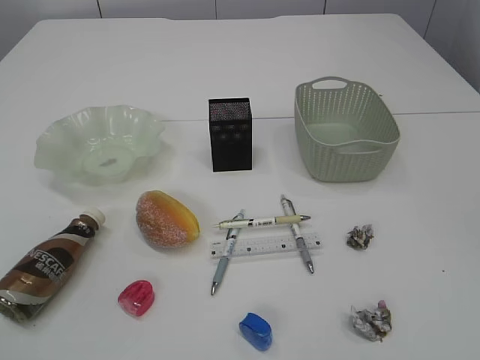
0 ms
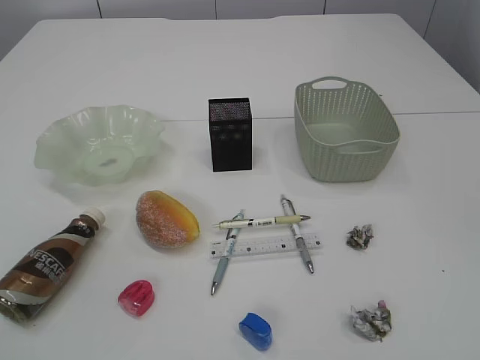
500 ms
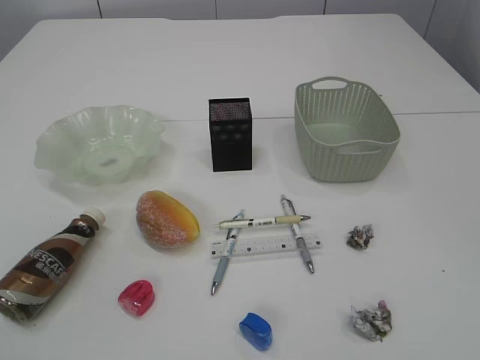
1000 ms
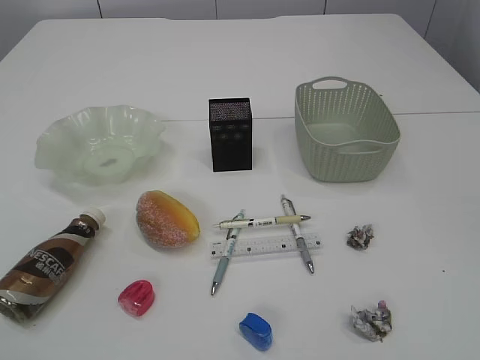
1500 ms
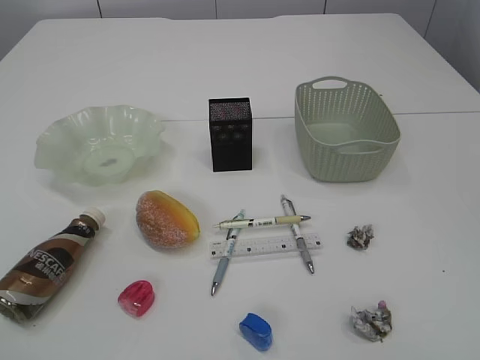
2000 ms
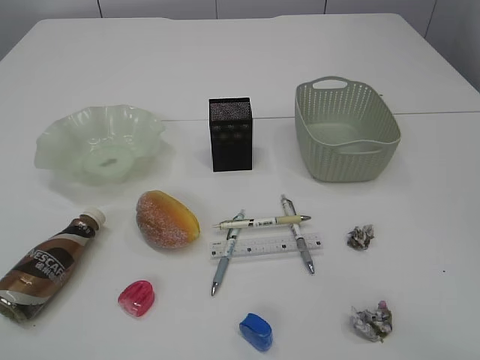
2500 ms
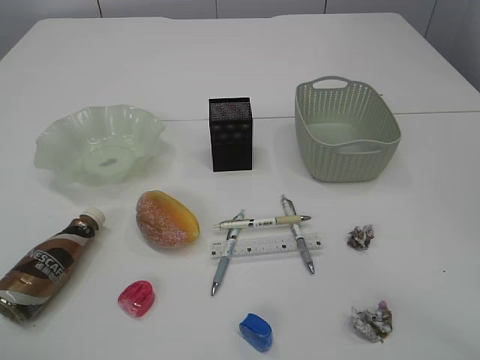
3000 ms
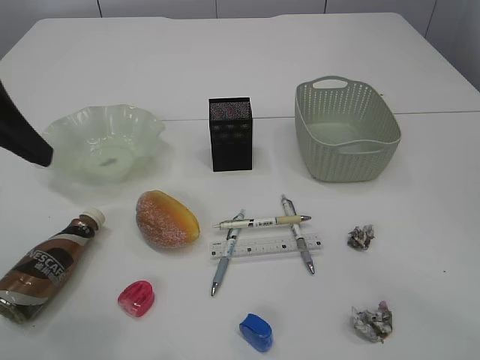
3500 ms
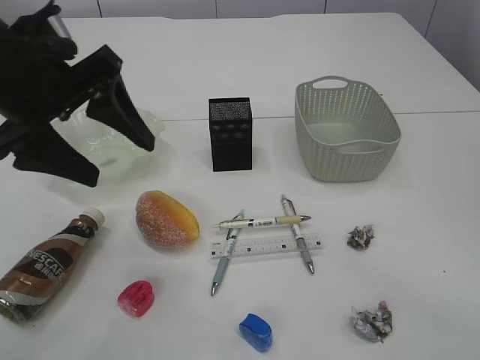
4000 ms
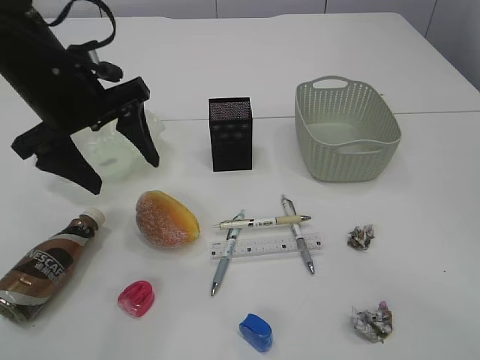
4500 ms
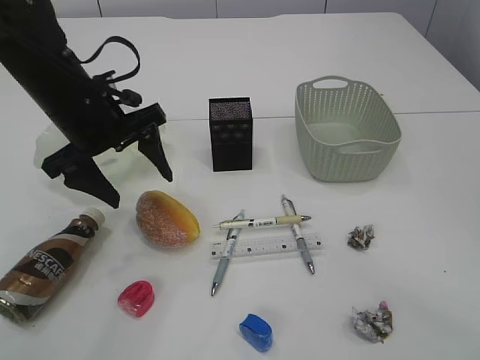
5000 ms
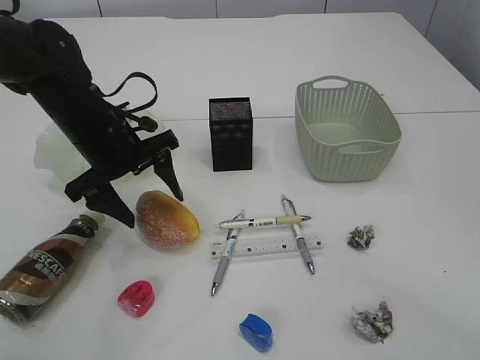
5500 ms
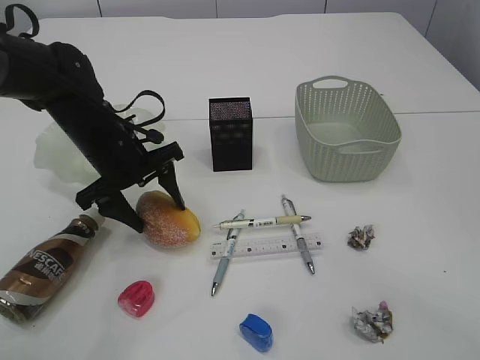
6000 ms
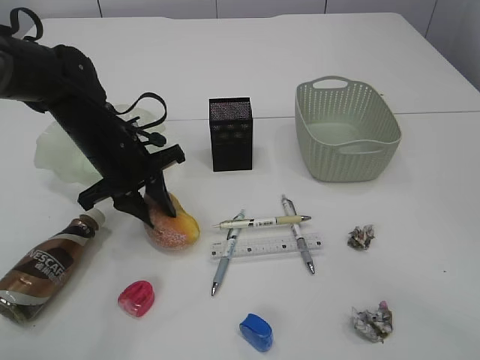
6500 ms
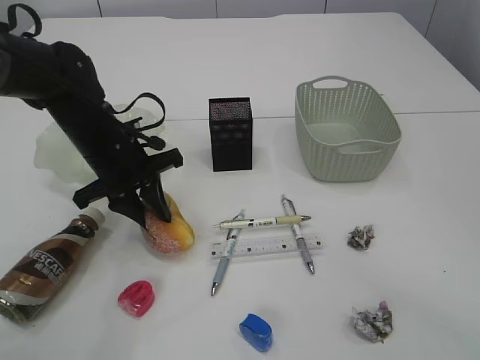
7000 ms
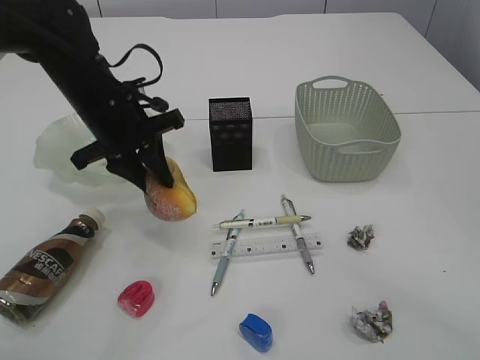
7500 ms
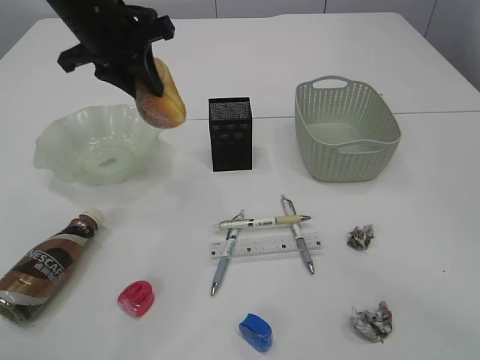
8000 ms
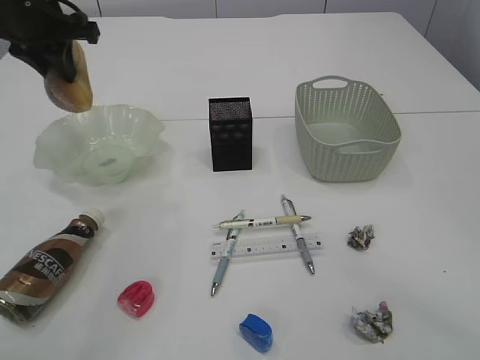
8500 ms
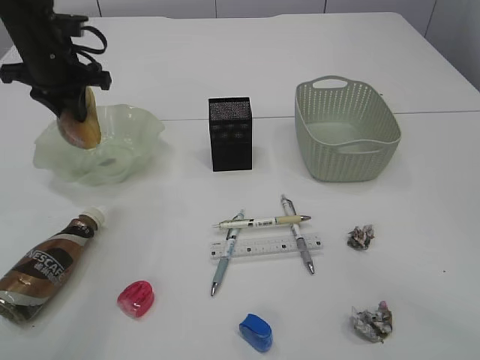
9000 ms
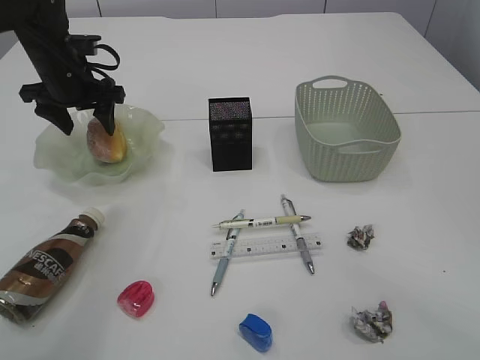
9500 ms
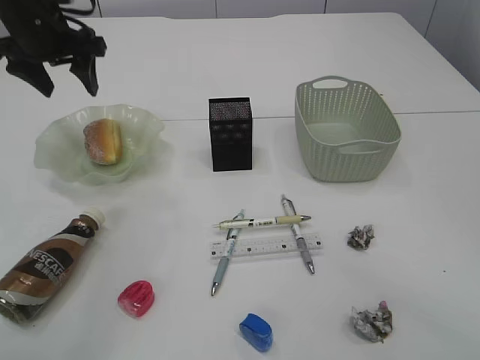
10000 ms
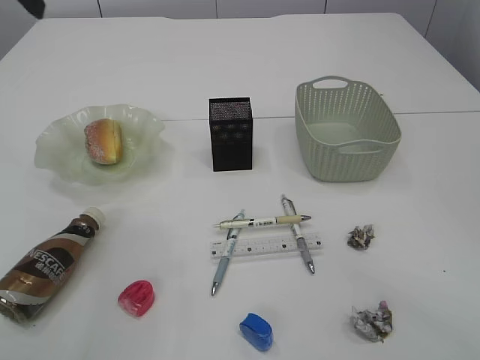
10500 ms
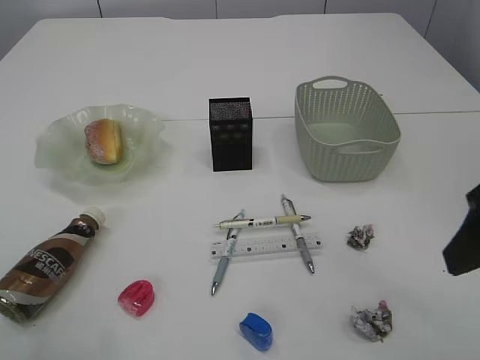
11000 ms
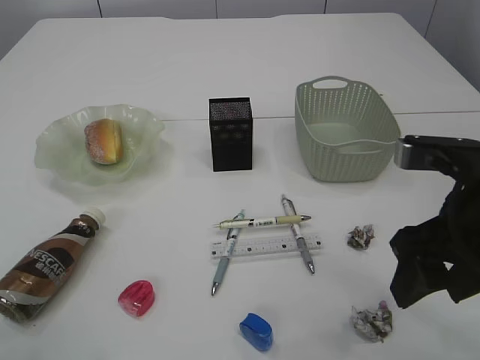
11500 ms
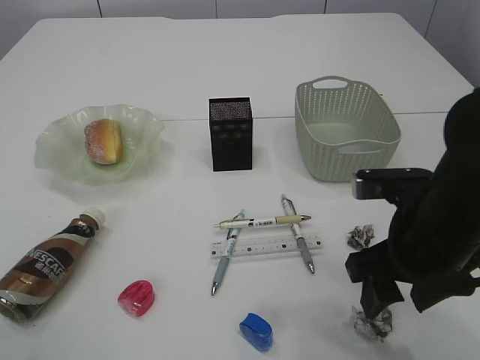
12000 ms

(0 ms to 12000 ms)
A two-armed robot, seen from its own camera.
Step, 8000 ms - 10000 ms: place the bread in the plate.
2000 ms - 4000 ms: The left gripper goes about 30 cm forward and to the right.
4000 ms - 6000 ms: The left gripper shifts roughly 20 cm downward and forward.
6000 ms - 8000 ms: The left gripper heads upward, covering about 15 cm, and closes its fingers.
8000 ms - 10000 ms: The left gripper is displaced to the left by roughly 10 cm, moves about 10 cm downward and comes back, and opens its fingers.
10000 ms - 12000 ms: The left gripper moves backward and upward, approximately 30 cm. The right gripper is displaced downward, forward and to the left by approximately 15 cm.

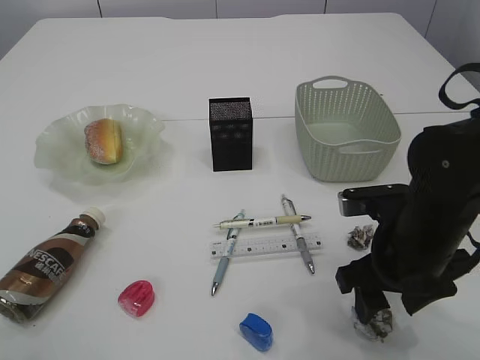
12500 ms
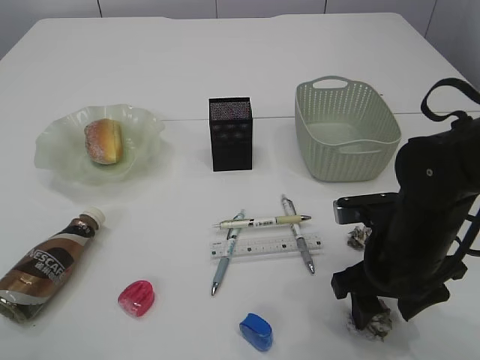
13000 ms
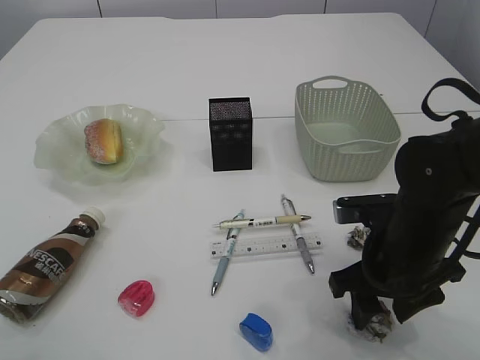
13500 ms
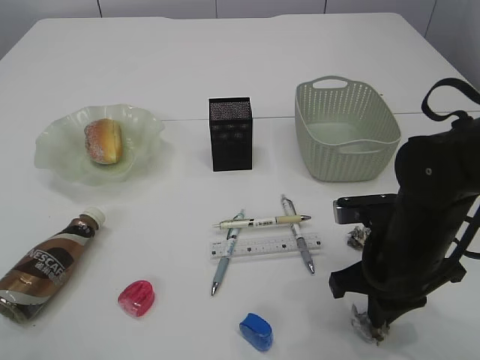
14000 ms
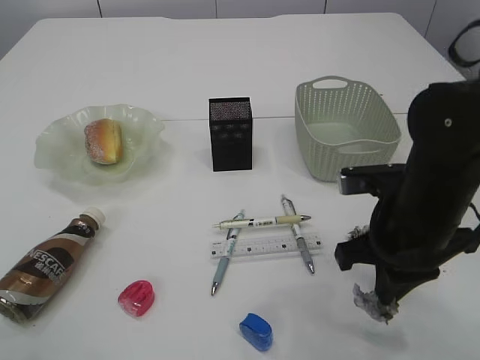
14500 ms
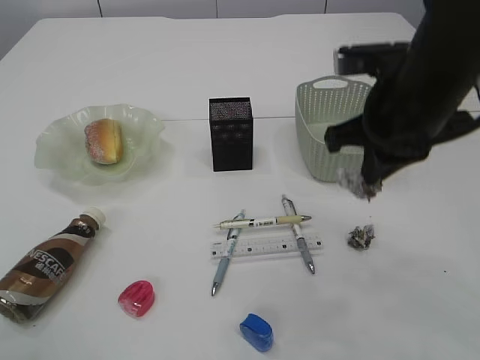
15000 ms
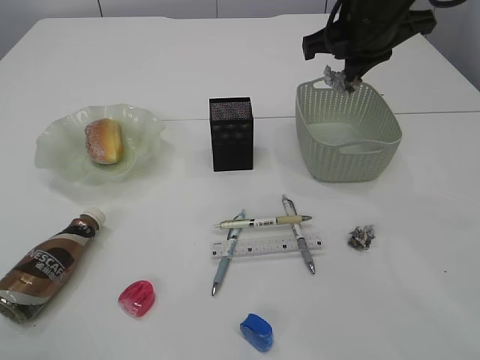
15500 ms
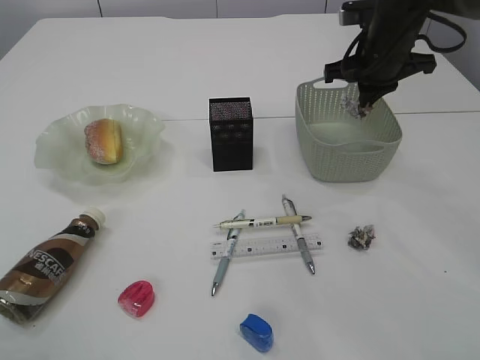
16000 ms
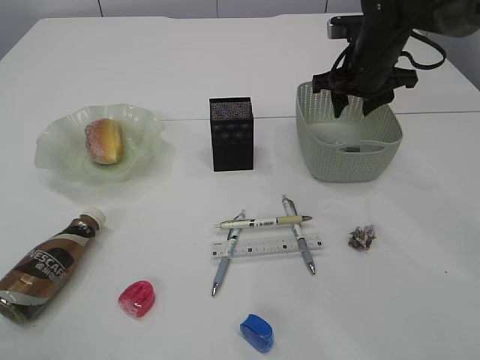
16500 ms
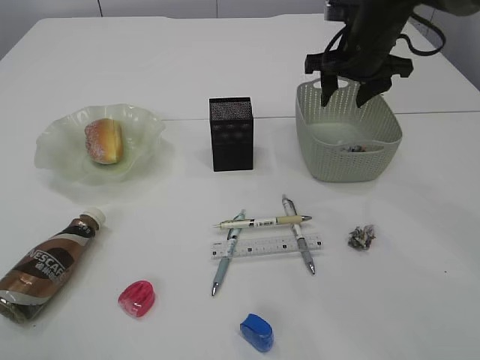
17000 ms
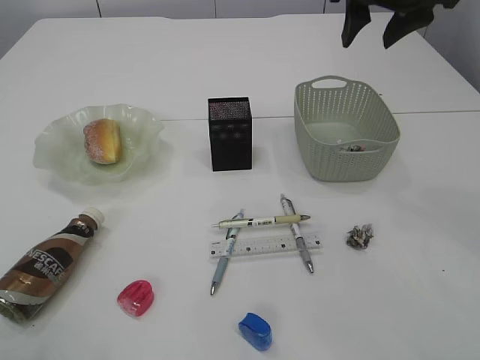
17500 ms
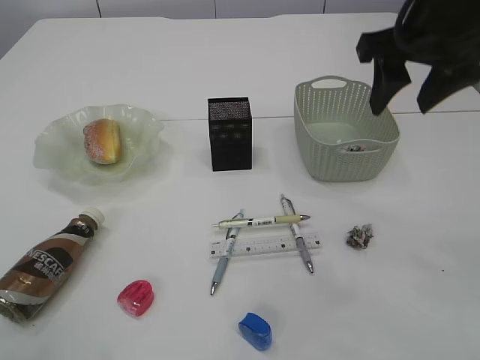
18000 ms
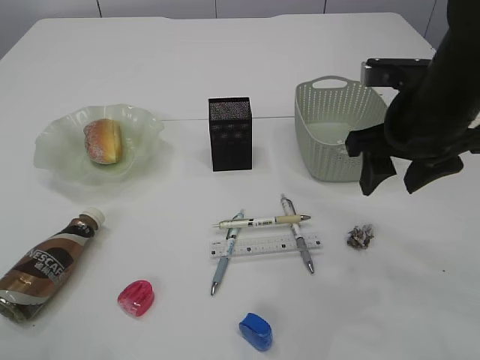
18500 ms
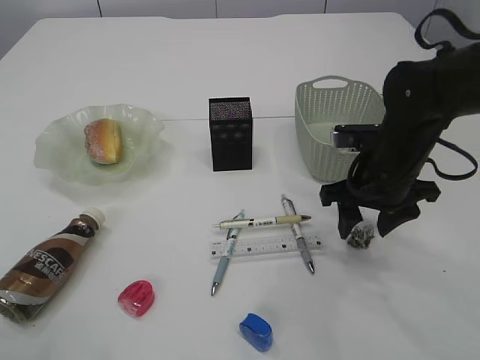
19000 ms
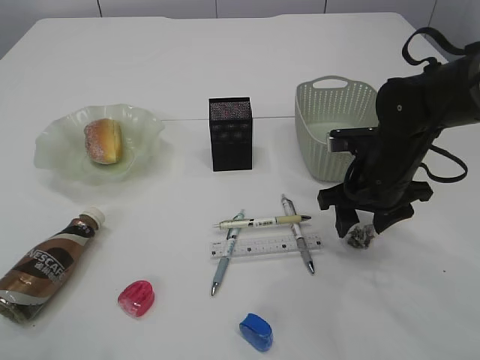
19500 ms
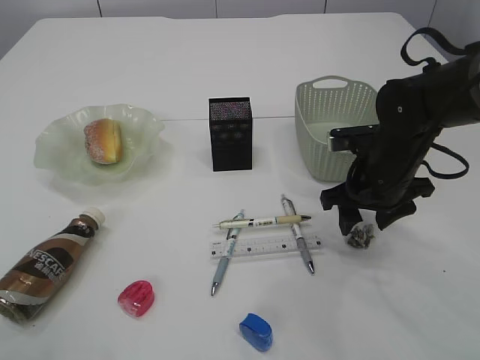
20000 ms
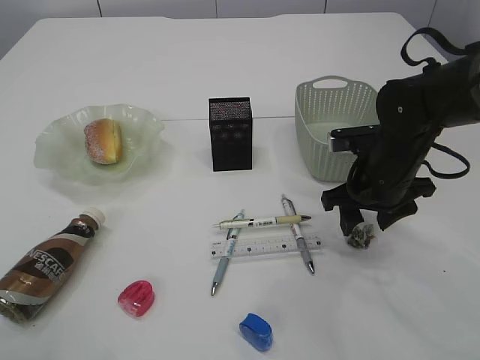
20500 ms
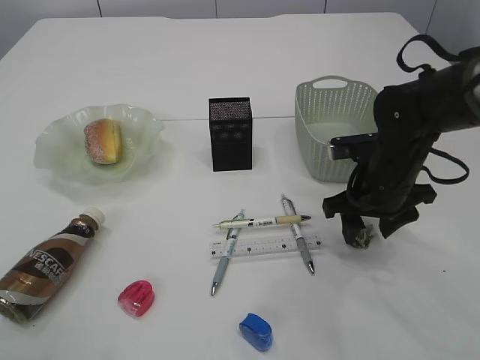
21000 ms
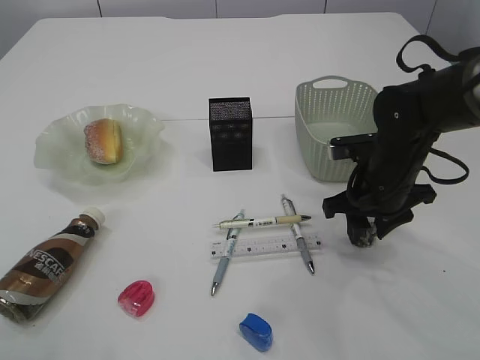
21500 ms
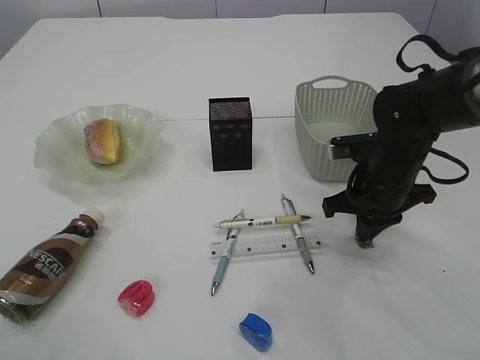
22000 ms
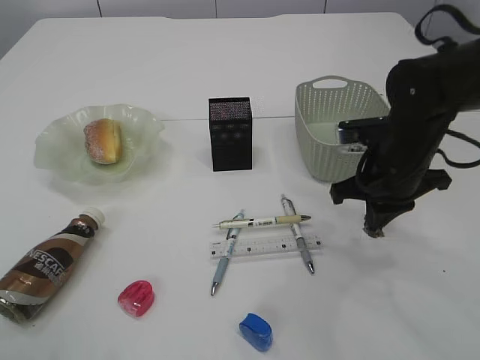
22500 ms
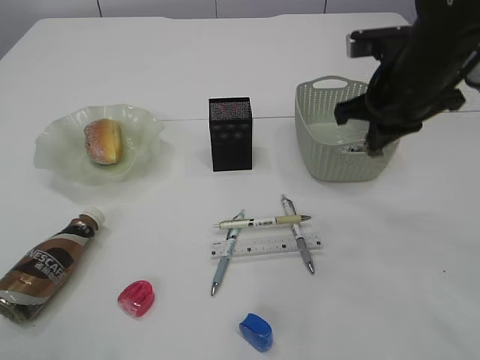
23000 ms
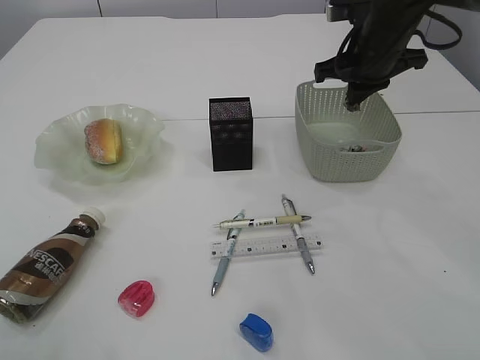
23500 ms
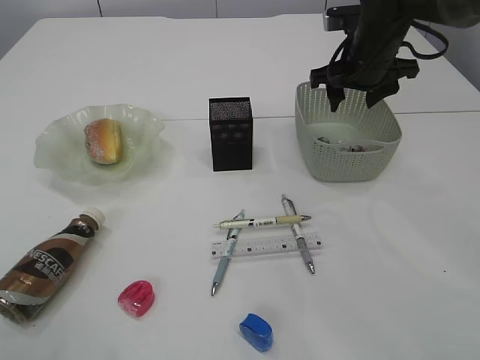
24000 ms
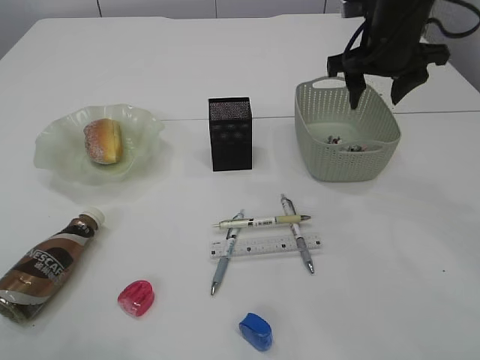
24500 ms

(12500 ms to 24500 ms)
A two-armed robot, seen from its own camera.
Step, 12500 ms - 14500 ms: Pick up the waste paper.
Step, 15000 ms - 16500 ms: Place the waste paper in the basket.
Step, 17000 ms - 22500 ms: Pick up the waste paper.
Step, 23000 ms - 24000 ms: Place the waste paper in the basket.
12500 ms - 14500 ms: The right gripper closes.
14500 ms - 16500 ms: The right gripper shifts approximately 25 cm forward, and opens.
16500 ms - 18500 ms: The right gripper shifts about 15 cm backward.
18500 ms - 20500 ms: The right gripper moves downward, approximately 10 cm.
20500 ms - 22500 ms: The right gripper closes its fingers.
22500 ms - 24500 ms: The right gripper goes roughly 15 cm upward and forward, and opens its fingers.

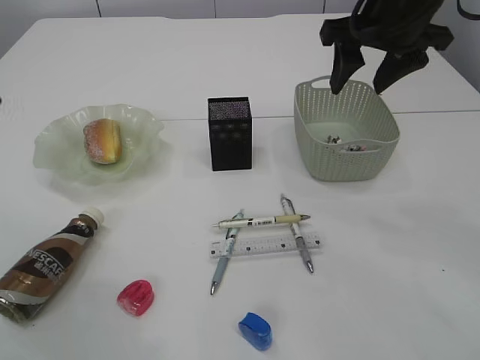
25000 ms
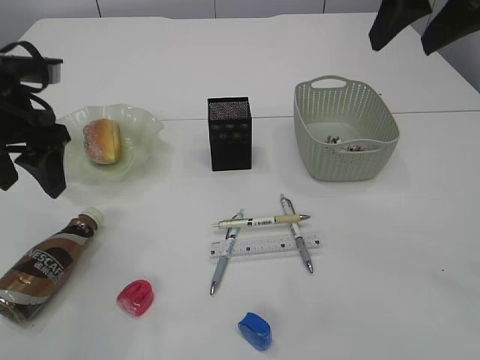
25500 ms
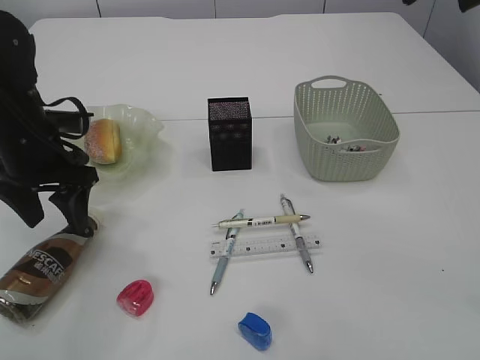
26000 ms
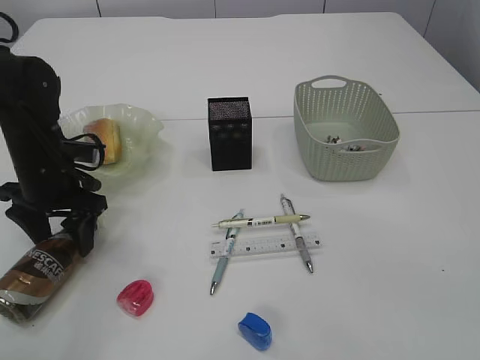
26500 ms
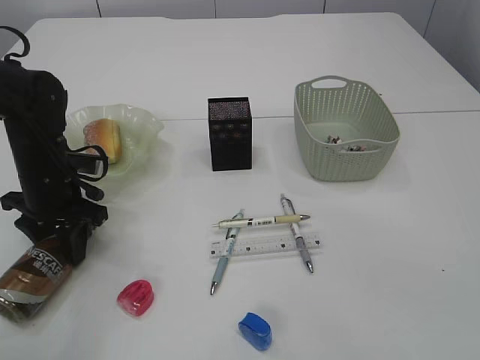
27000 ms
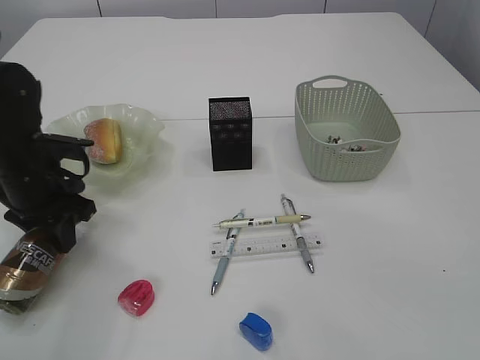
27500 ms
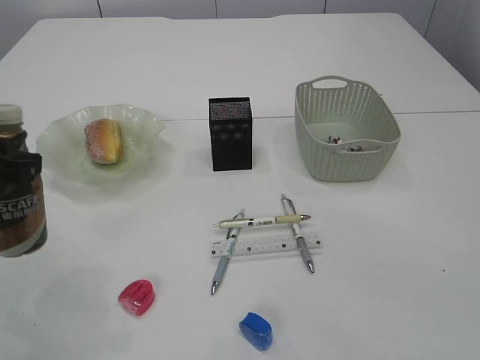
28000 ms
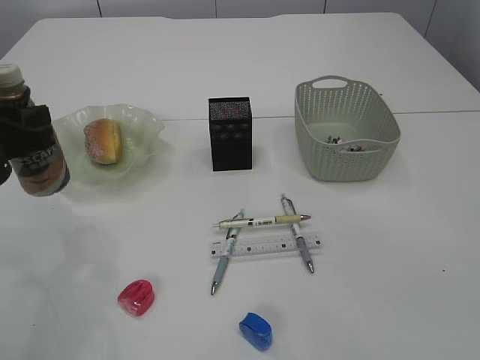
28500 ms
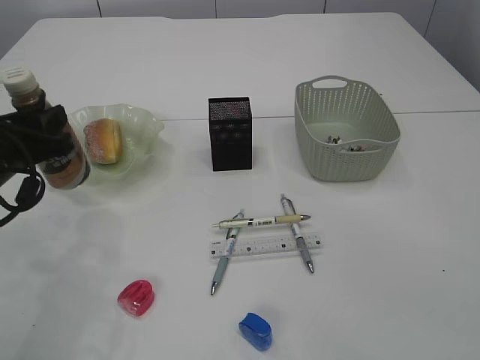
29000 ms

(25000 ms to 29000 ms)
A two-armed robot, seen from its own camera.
Step, 25000 ms - 27500 ms: Pick up the bottle with the left arm.
25000 ms - 27000 ms: The left gripper heads downward, covering approximately 25 cm. The right gripper is displaced backward and upward by approximately 20 cm.
27000 ms - 29000 ms: The left gripper goes about 10 cm backward and upward.
